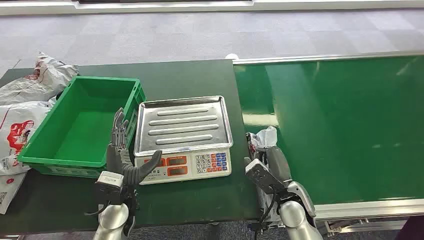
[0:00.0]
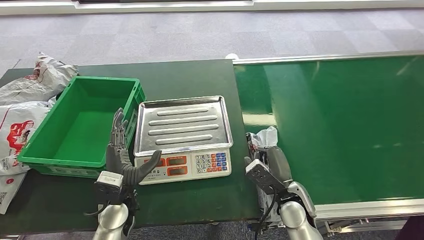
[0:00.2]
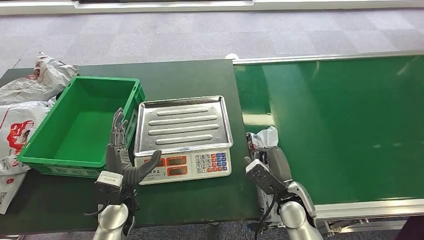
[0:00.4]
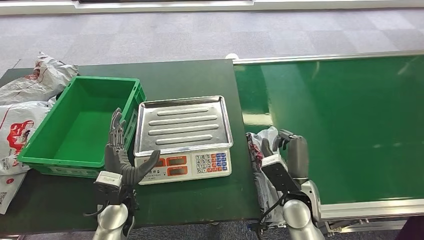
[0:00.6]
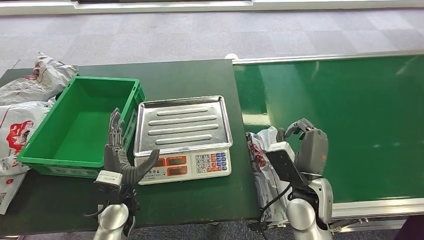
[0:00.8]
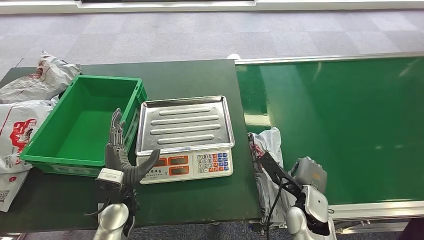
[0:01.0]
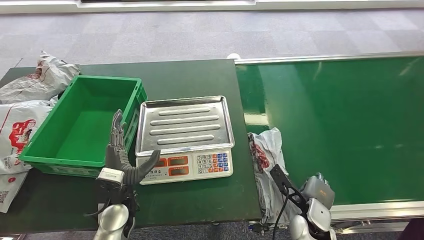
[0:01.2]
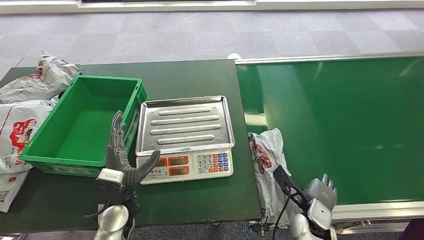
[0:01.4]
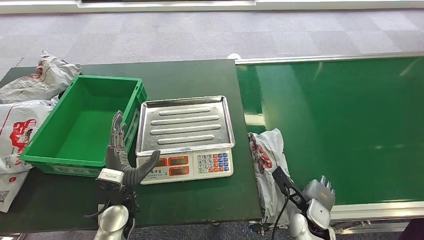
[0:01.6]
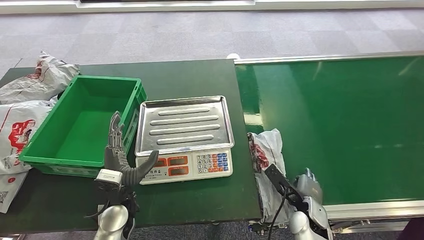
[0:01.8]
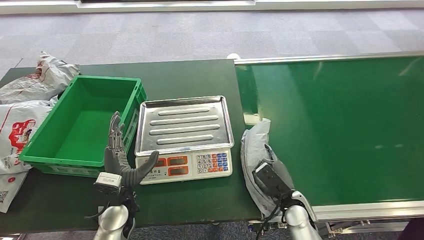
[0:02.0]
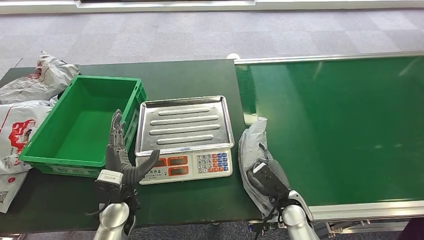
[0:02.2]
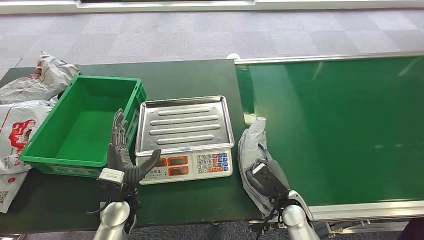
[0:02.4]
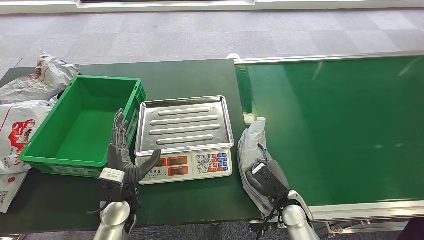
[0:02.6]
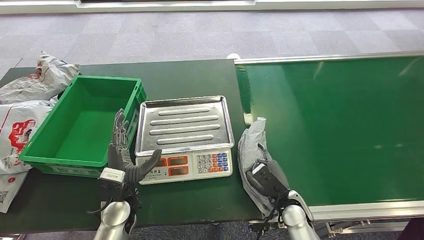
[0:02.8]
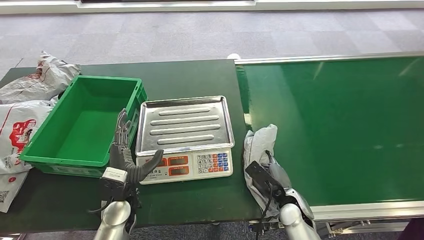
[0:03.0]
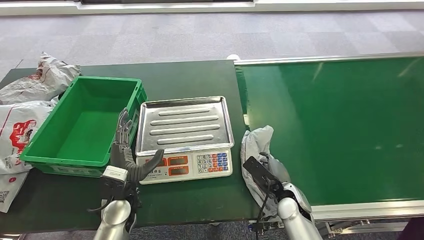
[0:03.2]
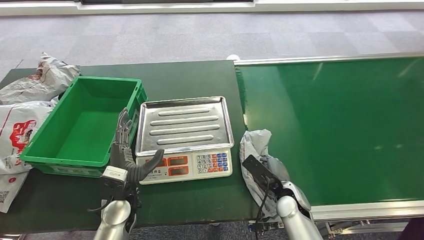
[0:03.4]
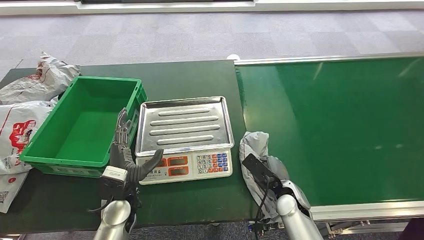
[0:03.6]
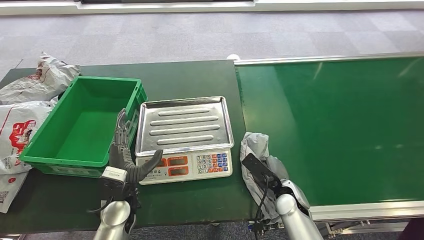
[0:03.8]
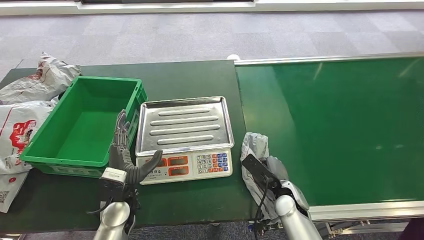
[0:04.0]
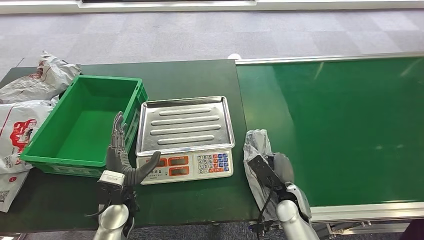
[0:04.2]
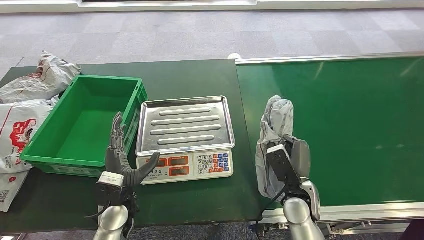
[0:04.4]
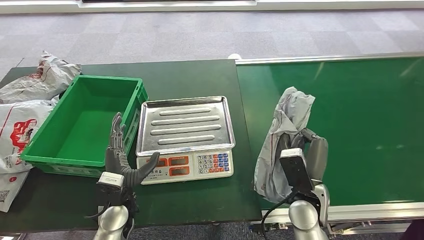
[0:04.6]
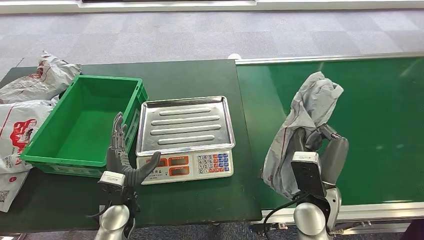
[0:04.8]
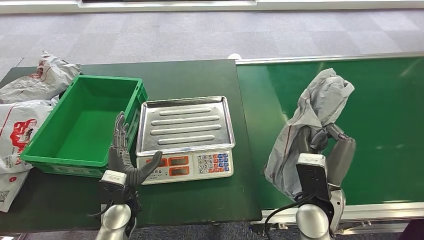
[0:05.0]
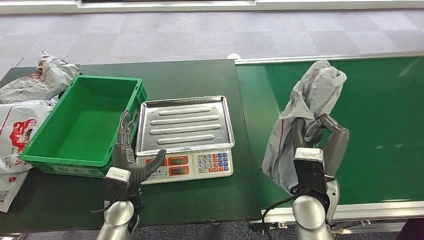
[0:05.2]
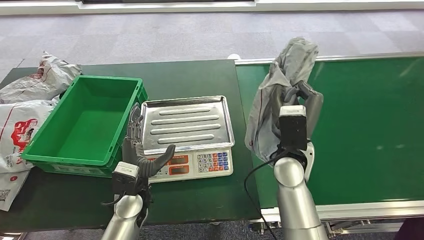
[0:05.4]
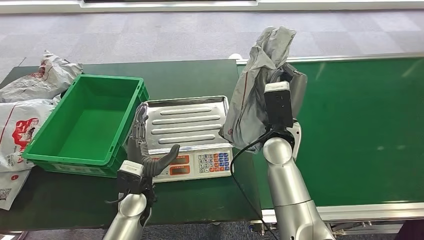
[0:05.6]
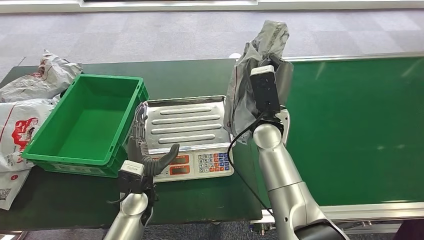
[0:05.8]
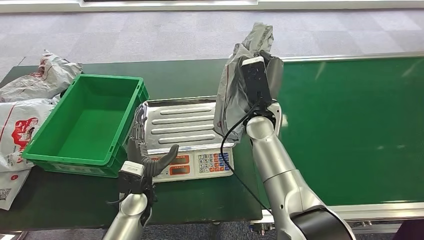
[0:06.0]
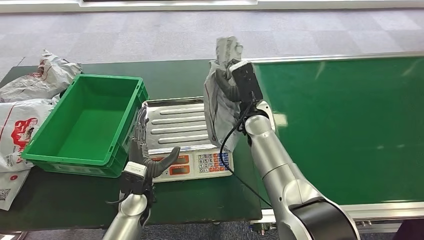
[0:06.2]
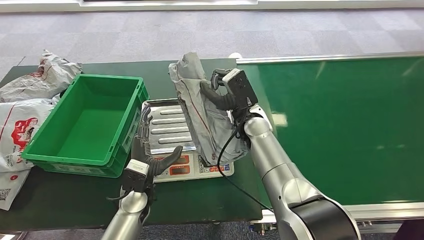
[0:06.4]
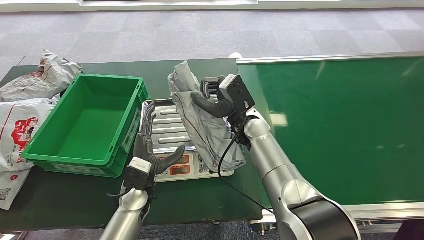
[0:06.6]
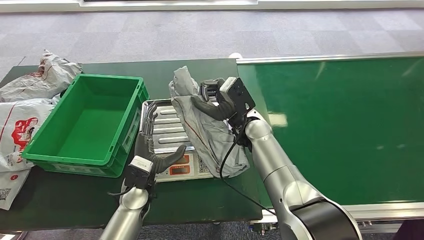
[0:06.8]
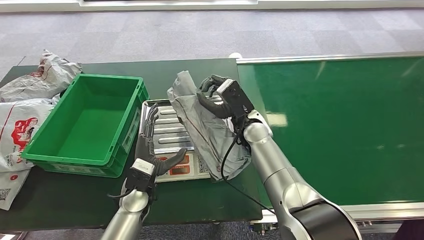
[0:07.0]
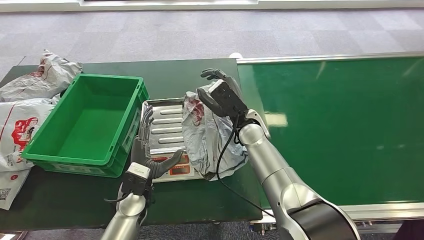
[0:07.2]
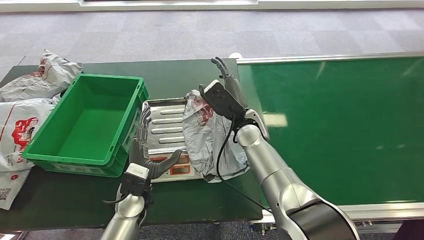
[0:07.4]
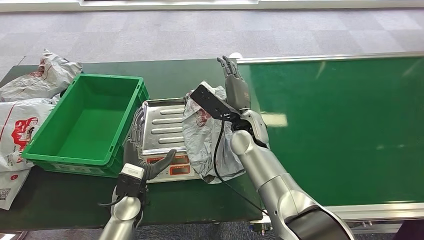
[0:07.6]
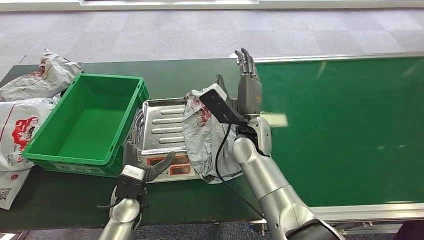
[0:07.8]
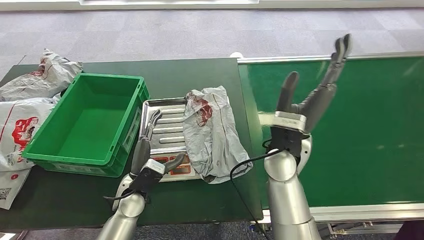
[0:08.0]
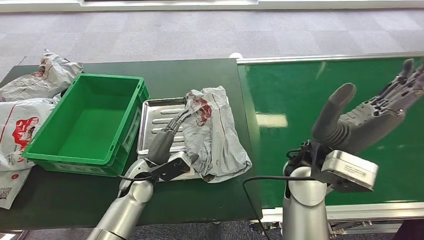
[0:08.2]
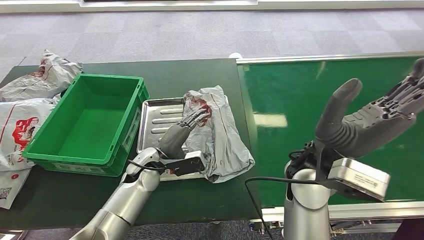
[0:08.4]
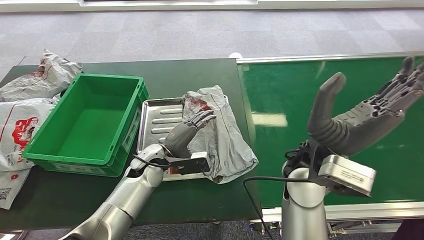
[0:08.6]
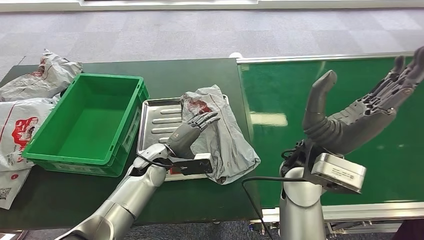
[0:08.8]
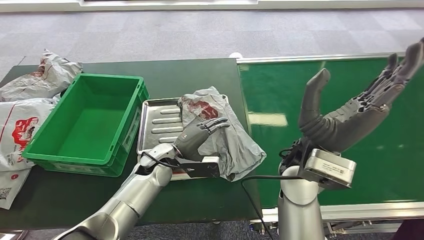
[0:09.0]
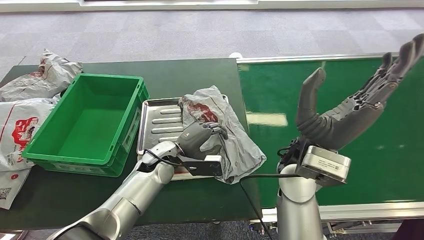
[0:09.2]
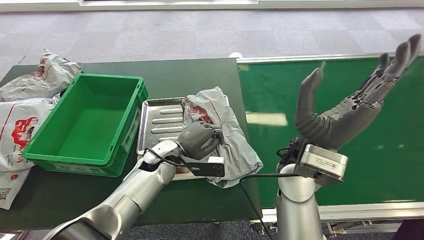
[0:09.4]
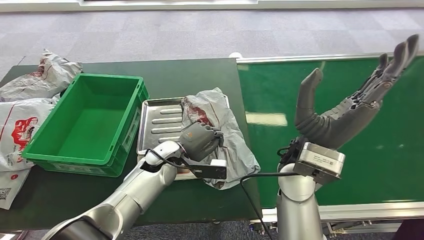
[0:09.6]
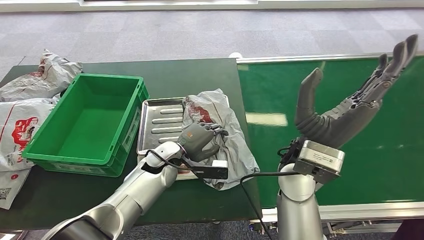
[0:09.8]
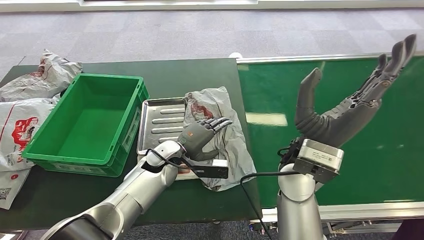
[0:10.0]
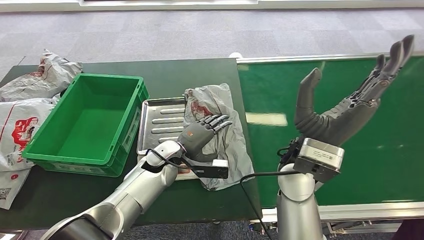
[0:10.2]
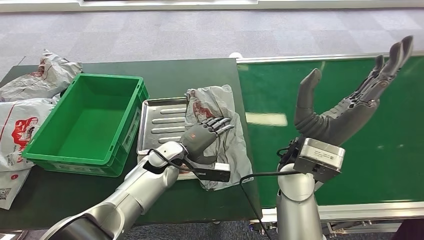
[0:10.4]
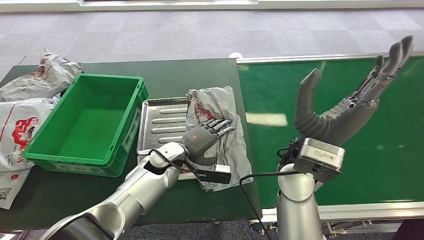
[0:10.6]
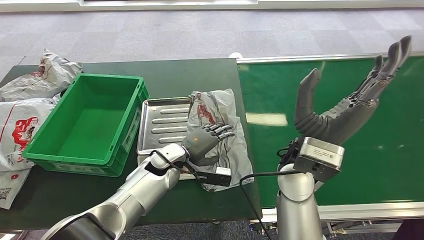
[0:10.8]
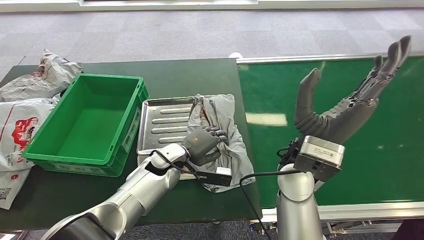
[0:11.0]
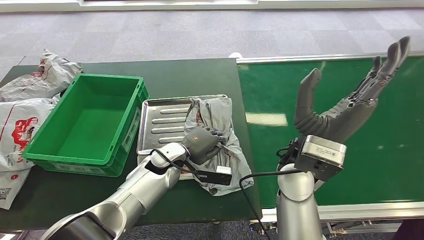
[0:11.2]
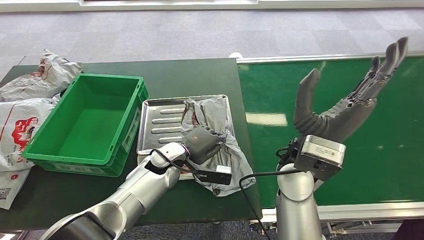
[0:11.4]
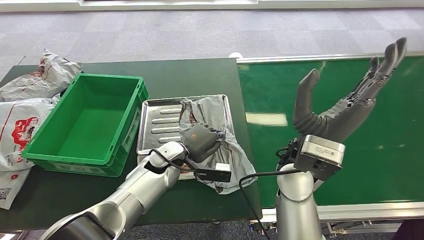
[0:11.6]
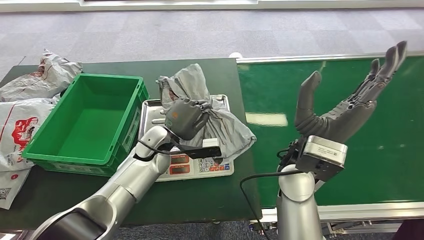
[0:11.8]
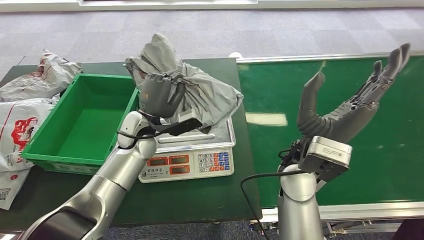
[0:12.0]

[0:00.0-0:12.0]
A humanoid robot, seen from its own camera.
Task of the whole recording: Weigh the package on the weighing device and place it in the left basket.
Step, 0:00.0 to 0:05.2: Pick up the package from the conveyor belt.
Step, 0:05.4 to 0:08.8: Place the package onto the inbound machine.
0:03.0 to 0:04.4: The right hand travels upward by roughly 5 cm.
0:04.4 to 0:06.0: The left hand moves approximately 5 cm. Meanwhile the right hand is displaced upward, forward and to the left by roughly 25 cm.
0:07.6 to 0:09.0: The right hand moves backward, upward and to the right, roughly 15 cm, while the left hand moves forward and to the right, about 10 cm.
0:09.0 to 0:10.4: There are only small adjustments of the hands.
0:10.4 to 0:12.0: The left hand heads upward and to the left, covering approximately 10 cm.

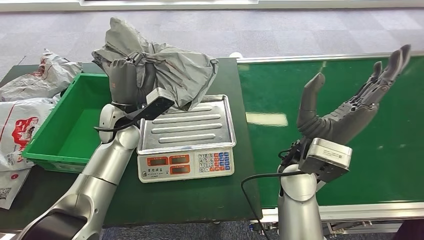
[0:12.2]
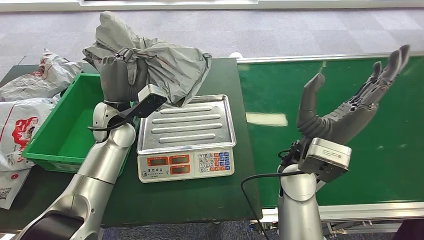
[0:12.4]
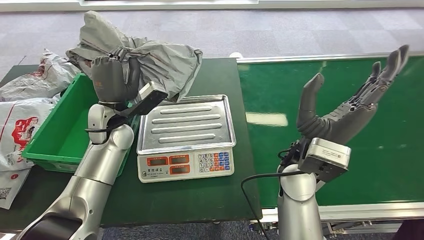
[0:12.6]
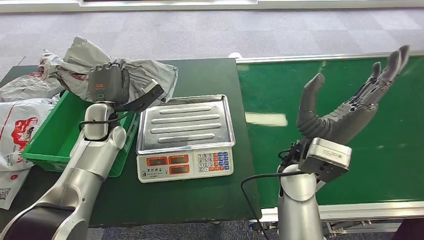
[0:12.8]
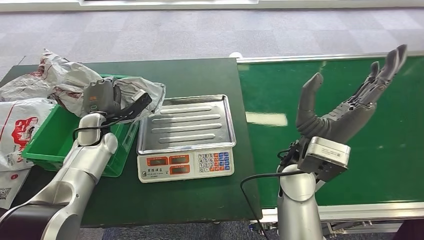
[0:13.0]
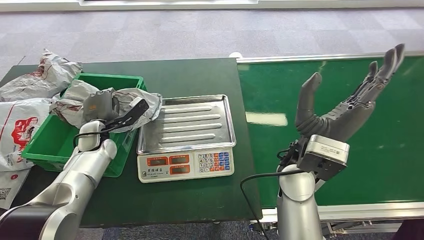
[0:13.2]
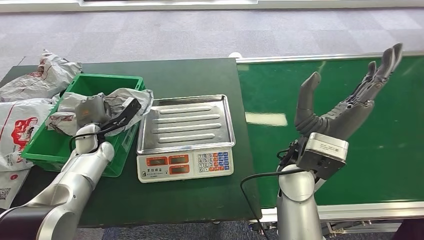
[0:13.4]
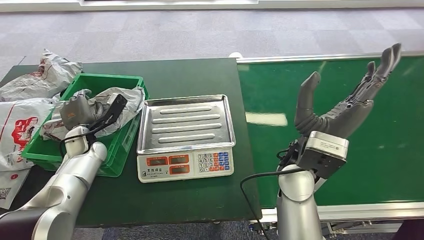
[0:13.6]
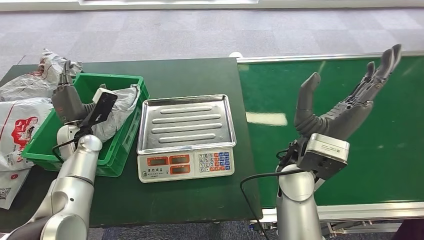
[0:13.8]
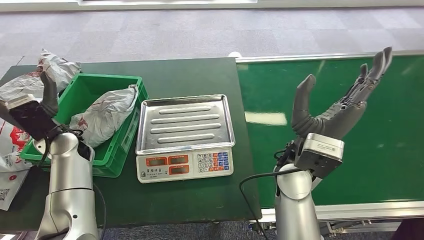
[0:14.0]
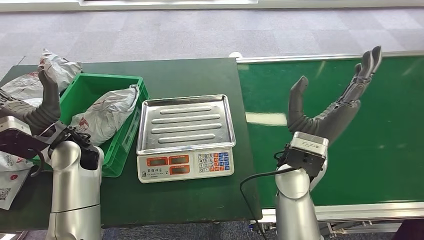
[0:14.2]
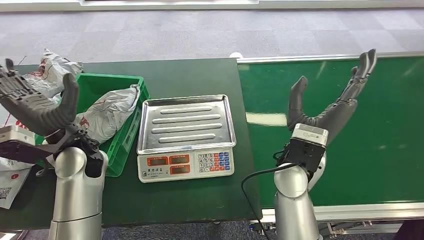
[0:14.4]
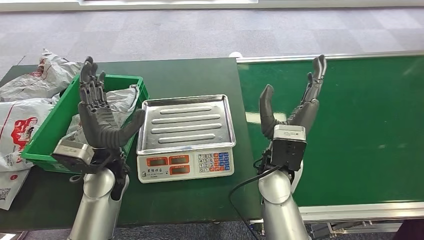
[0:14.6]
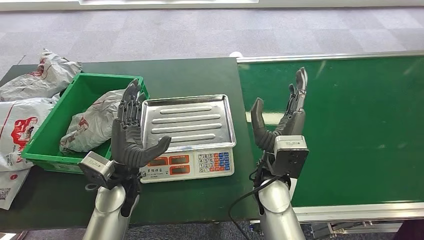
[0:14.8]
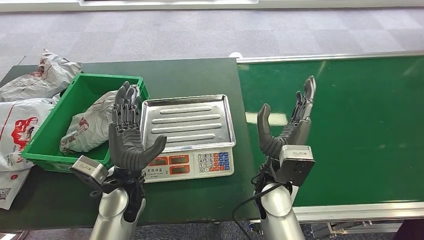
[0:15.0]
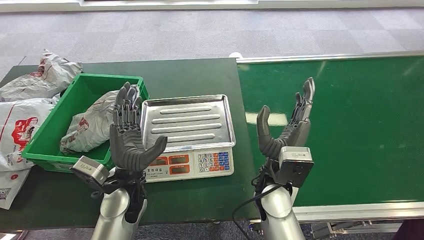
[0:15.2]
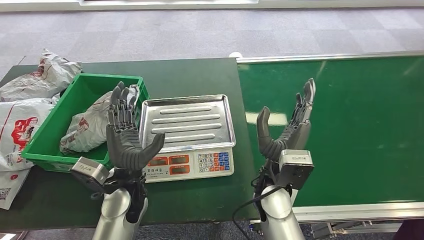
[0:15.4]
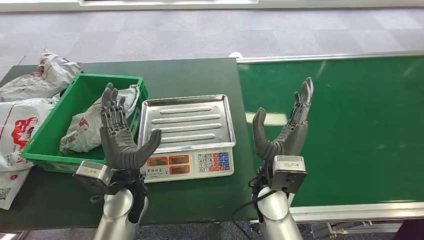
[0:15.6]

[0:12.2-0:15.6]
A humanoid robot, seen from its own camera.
Task of the whole recording: Weigh the package on the weighing device and place it in the left basket.
Step, 0:13.0 to 0:15.4: Place the package into the parcel locker.
0:12.2 to 0:13.8: The left hand moves to the left and downward, roughly 15 cm.
0:13.8 to 0:15.6: The right hand is displaced downward by approximately 5 cm. The left hand shifts about 20 cm to the right and backward.
